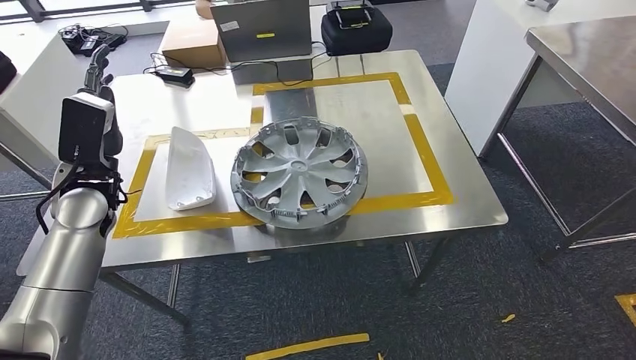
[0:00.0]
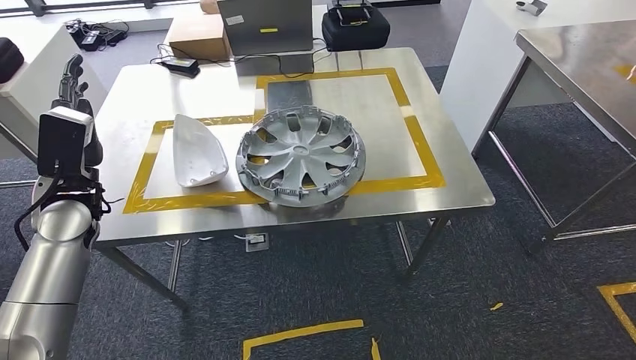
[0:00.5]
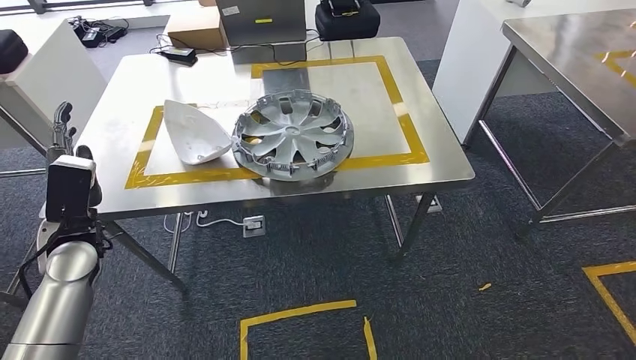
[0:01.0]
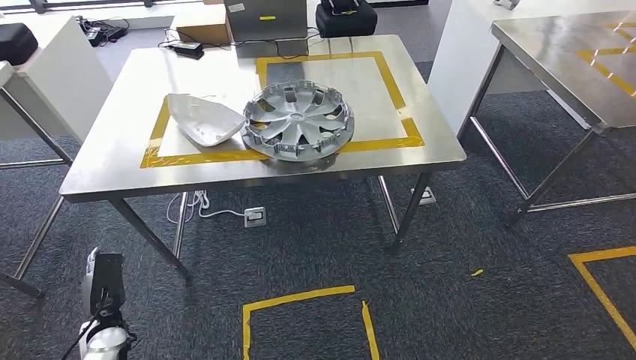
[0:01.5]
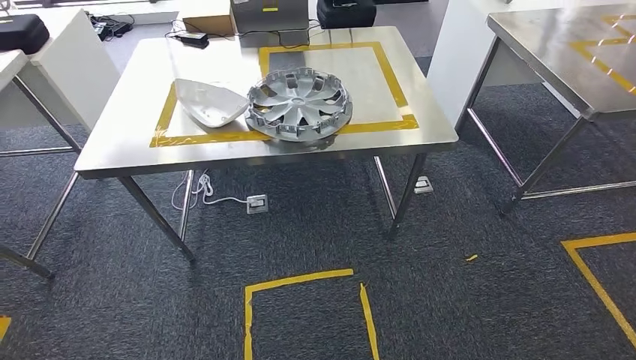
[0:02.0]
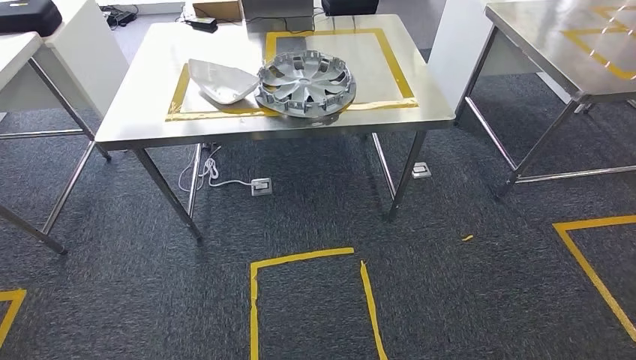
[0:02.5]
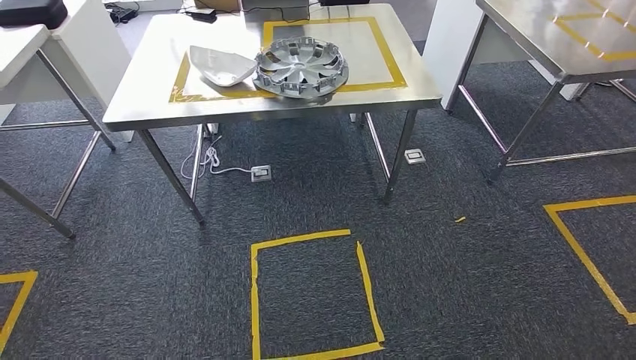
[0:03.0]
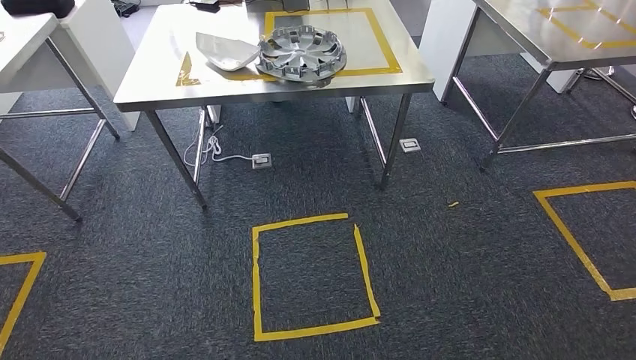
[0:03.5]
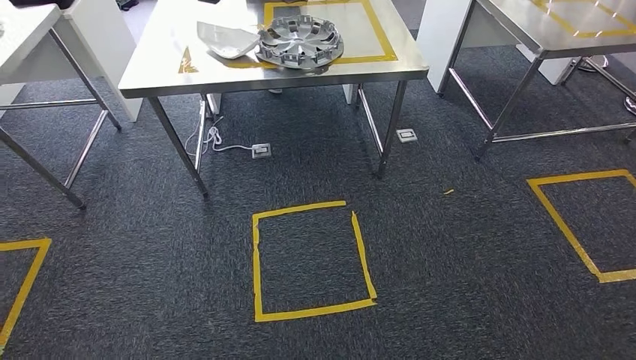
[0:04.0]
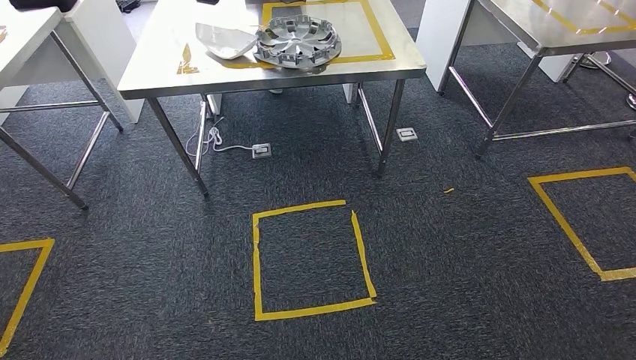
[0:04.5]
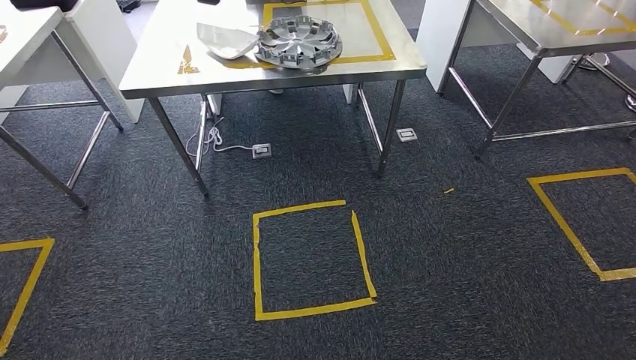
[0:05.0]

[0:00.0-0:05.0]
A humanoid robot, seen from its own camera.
Step, 0:00.0 to 0:05.0: Move to the initial position at the workbench.
